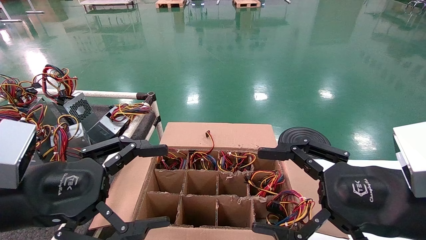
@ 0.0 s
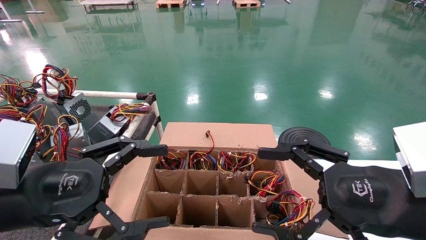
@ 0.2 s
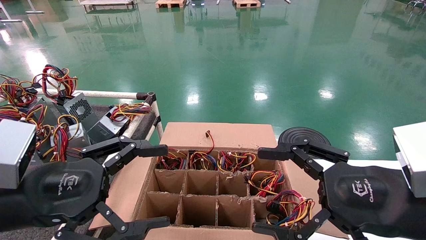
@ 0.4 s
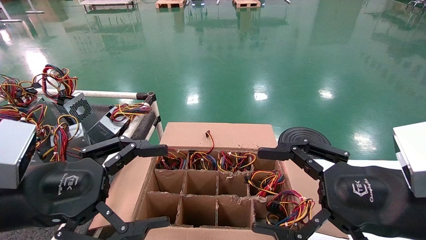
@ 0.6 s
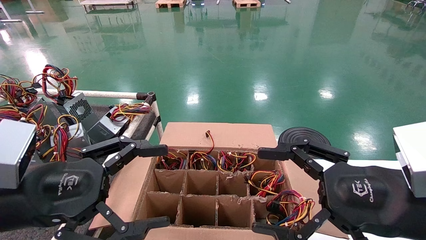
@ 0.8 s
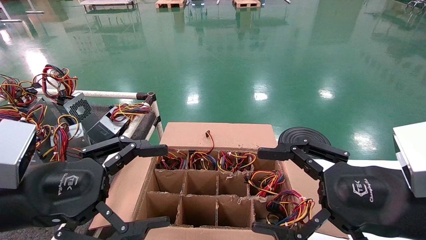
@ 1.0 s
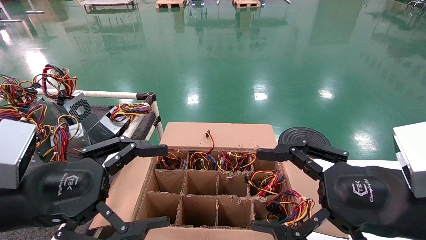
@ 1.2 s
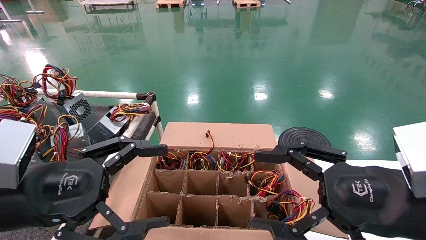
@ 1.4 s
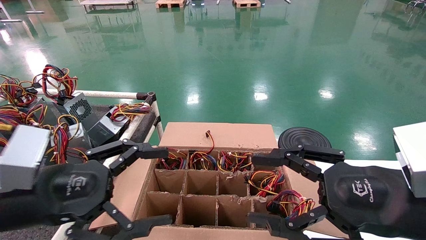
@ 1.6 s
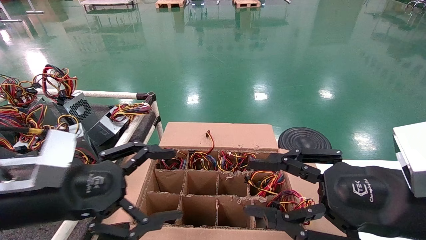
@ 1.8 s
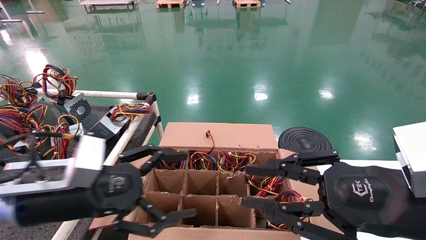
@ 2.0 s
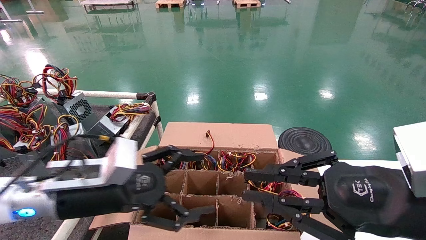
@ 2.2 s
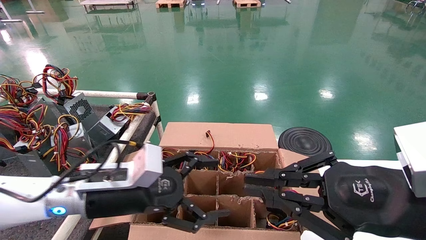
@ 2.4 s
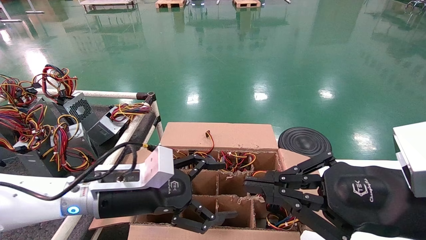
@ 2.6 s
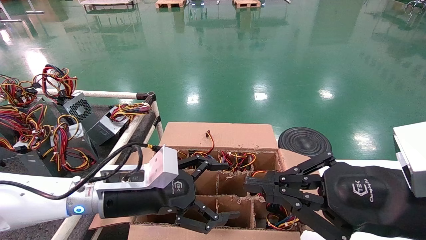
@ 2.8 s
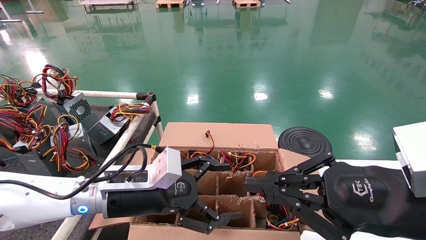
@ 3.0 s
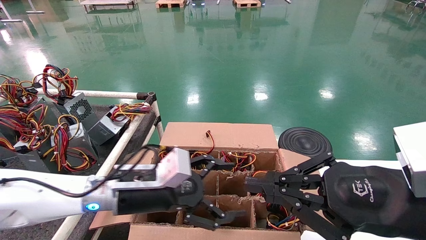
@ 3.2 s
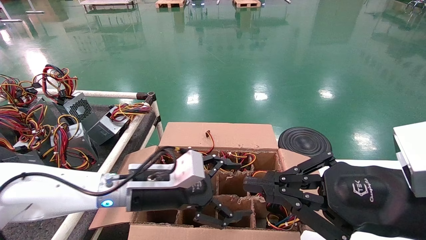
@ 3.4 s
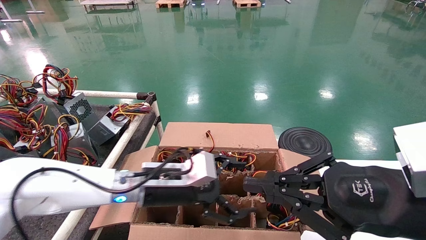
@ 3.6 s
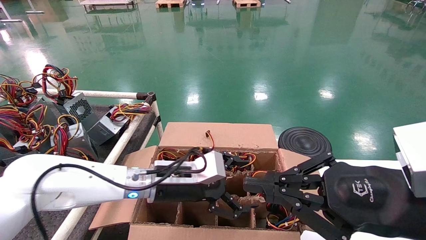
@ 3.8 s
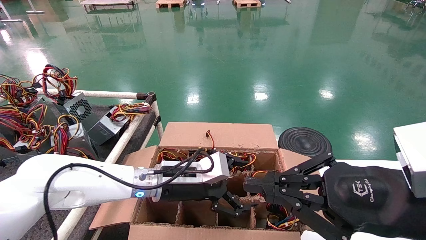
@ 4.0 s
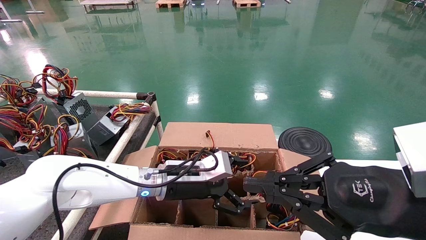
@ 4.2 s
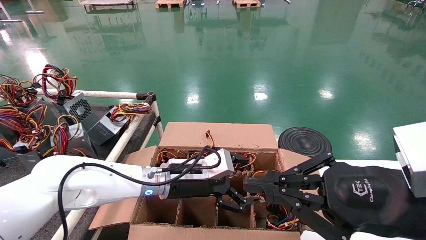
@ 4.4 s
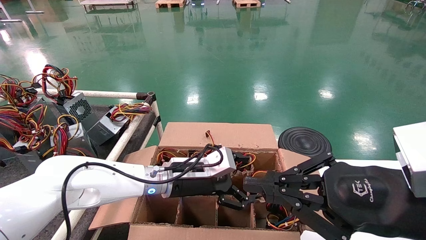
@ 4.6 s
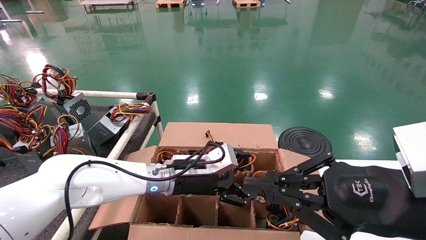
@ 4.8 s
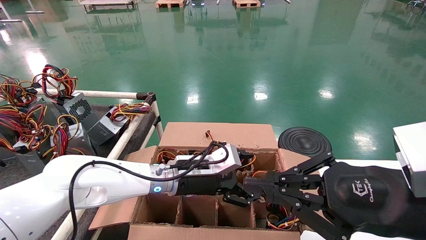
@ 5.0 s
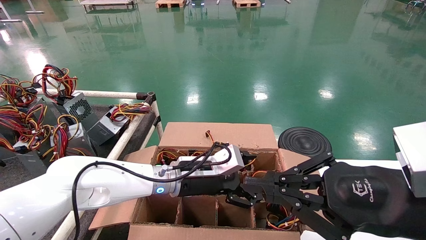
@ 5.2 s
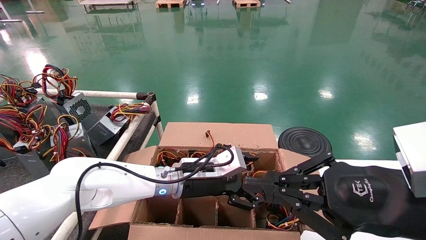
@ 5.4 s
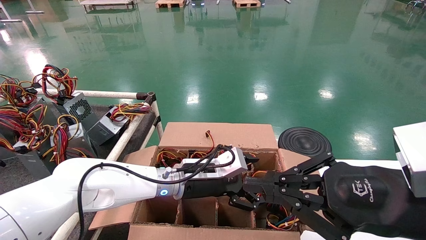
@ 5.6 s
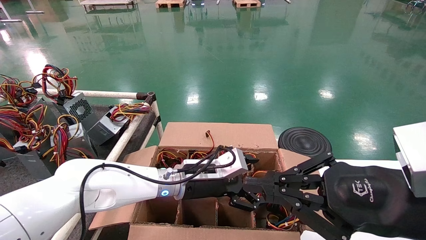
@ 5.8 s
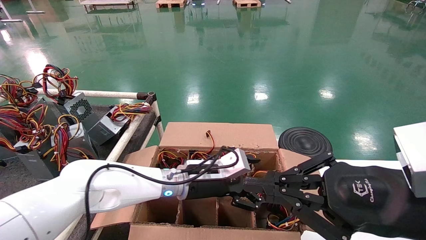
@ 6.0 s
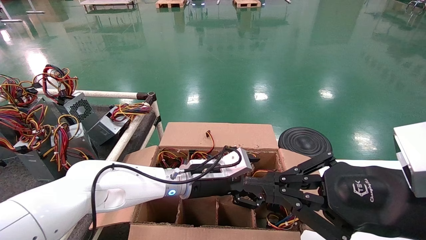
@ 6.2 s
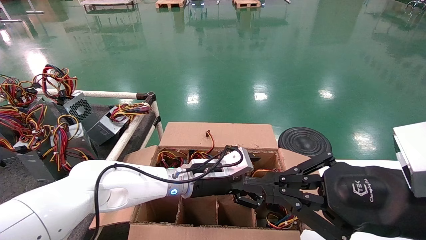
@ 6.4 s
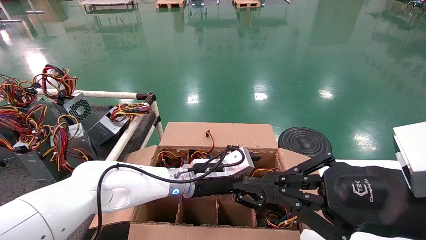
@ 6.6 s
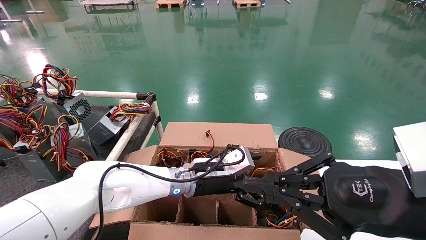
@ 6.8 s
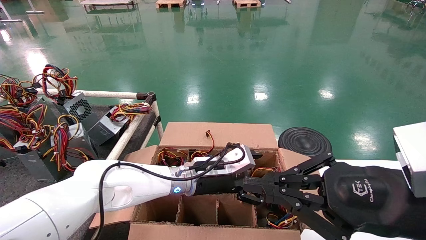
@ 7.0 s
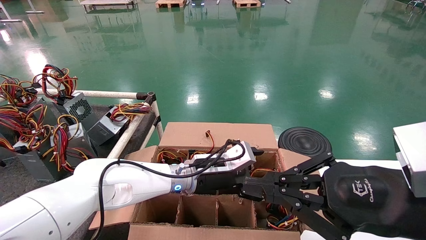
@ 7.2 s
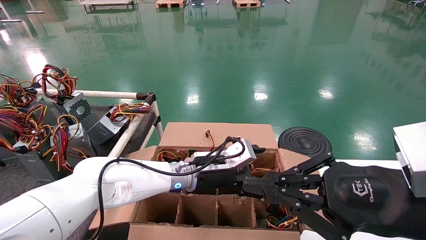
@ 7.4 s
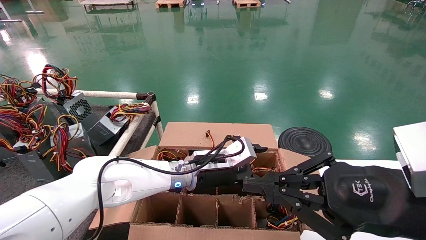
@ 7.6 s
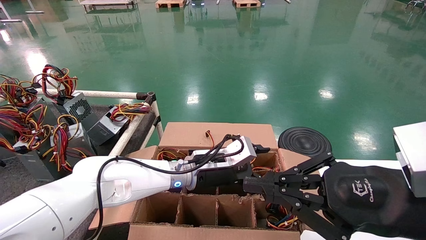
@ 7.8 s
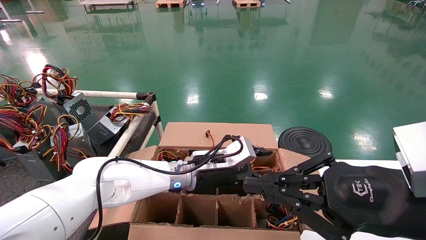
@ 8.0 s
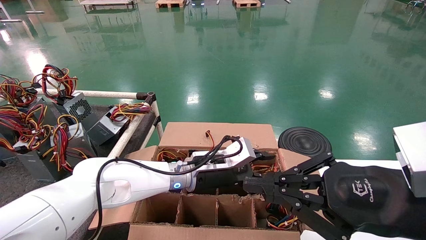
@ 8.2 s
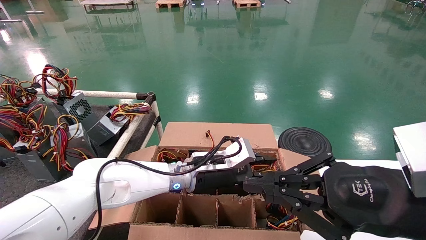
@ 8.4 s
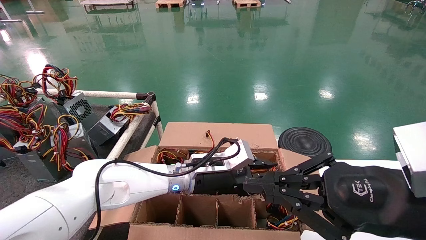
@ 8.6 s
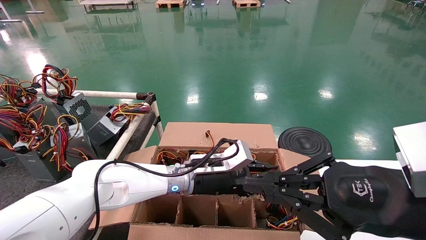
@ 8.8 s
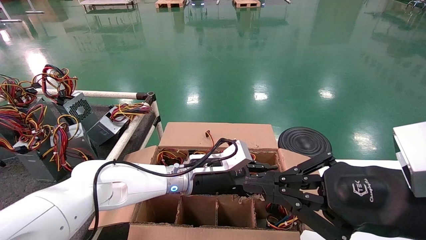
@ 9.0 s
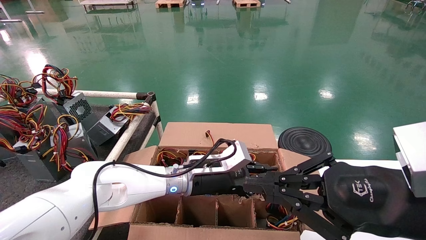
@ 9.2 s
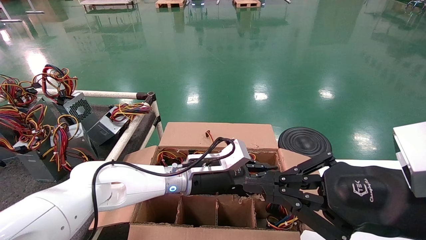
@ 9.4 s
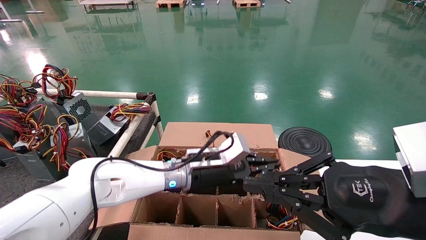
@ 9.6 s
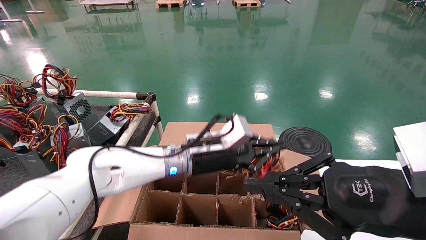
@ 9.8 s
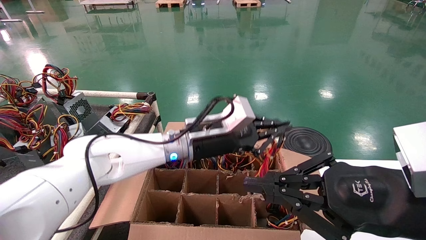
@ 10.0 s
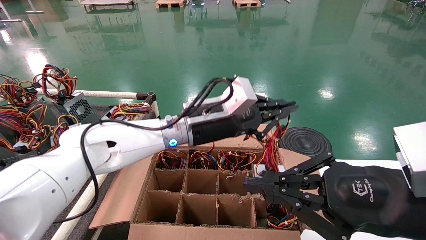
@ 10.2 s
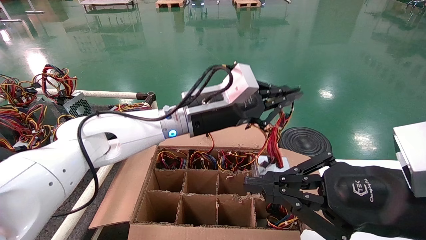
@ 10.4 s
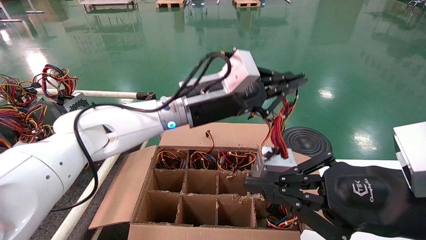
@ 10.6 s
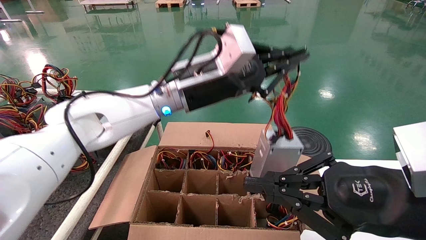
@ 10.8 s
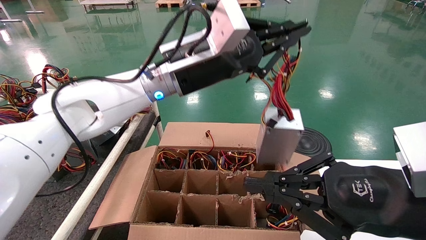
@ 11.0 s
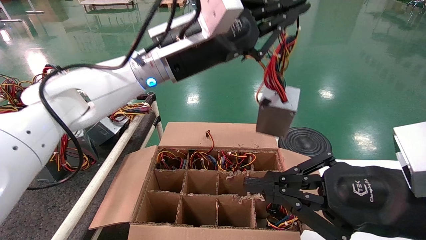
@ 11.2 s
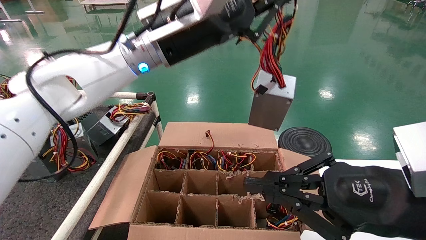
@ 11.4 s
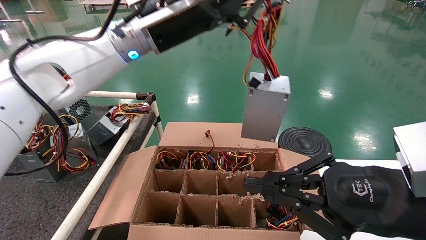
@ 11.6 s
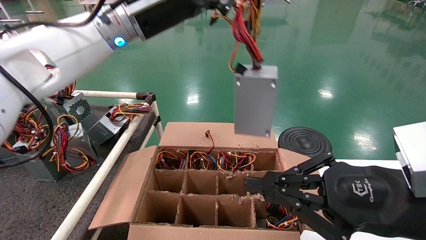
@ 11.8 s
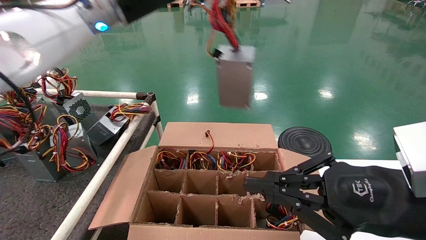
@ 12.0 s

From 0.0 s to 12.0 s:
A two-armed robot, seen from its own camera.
Step, from 1.8 s to 8.8 s: Grab and lift the power supply from the large box.
From 0.0 s to 1.6 s: The grippers move only a little.
From 1.6 s to 3.0 s: The right gripper closes. Meanwhile the left gripper is displaced to the right, forward and downward by approximately 15 cm.
From 3.0 s to 4.4 s: The left gripper travels forward and to the right by some 10 cm.
From 4.4 s to 7.6 s: There are only small adjustments of the grippers.
From 7.6 s to 9.0 s: The left gripper closes.
From 9.0 s to 10.4 s: The left gripper is displaced upward by about 15 cm.
From 10.4 s to 12.0 s: The left gripper travels upward and to the left by about 20 cm.

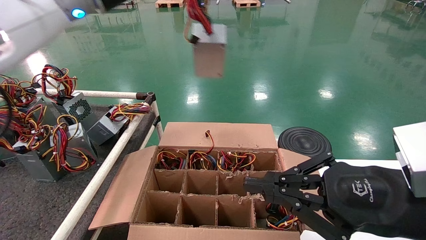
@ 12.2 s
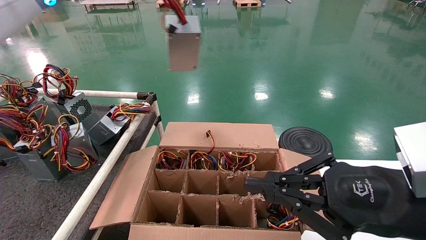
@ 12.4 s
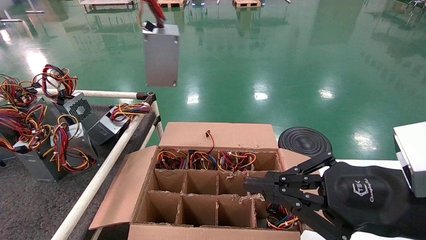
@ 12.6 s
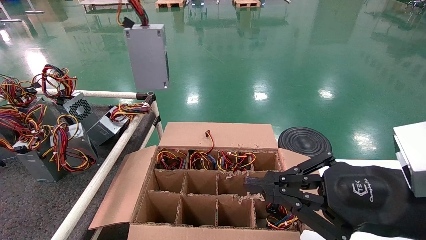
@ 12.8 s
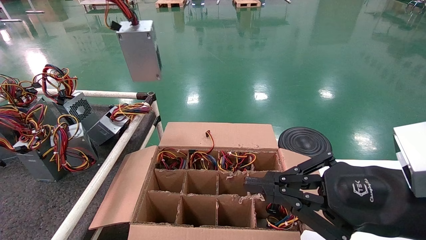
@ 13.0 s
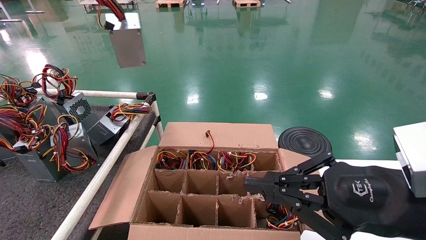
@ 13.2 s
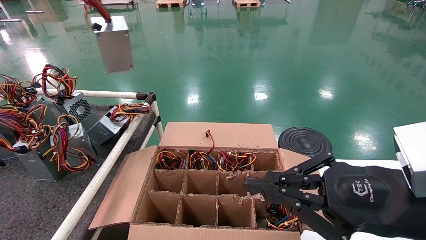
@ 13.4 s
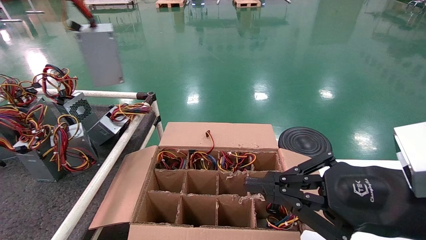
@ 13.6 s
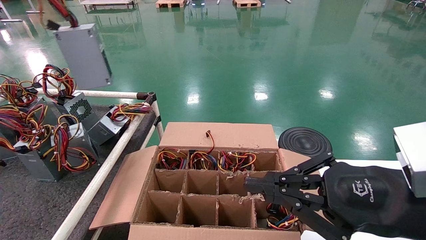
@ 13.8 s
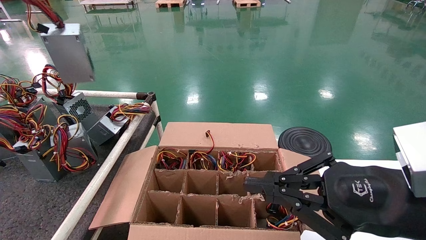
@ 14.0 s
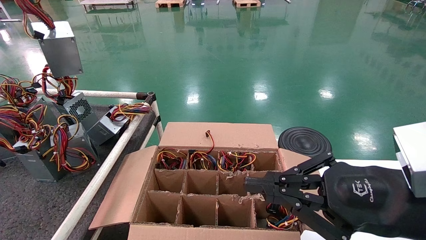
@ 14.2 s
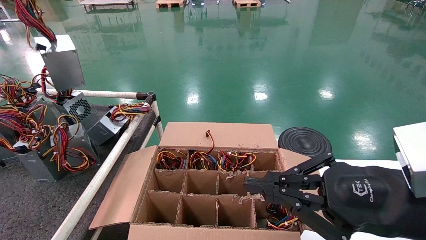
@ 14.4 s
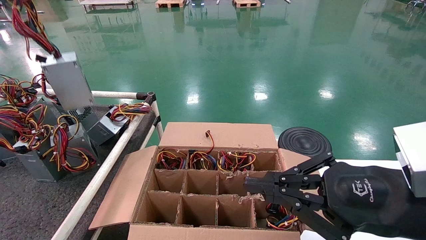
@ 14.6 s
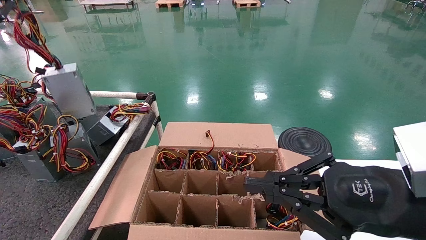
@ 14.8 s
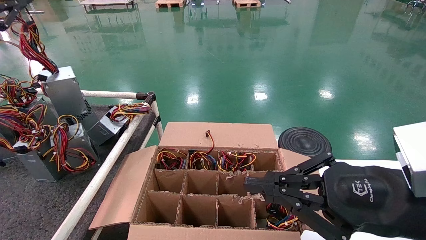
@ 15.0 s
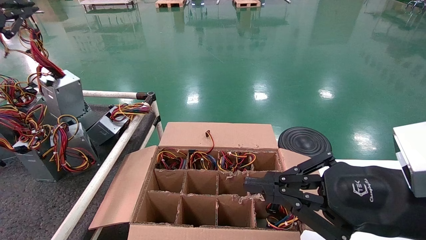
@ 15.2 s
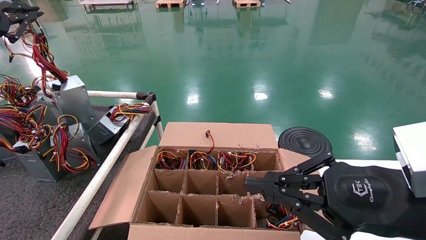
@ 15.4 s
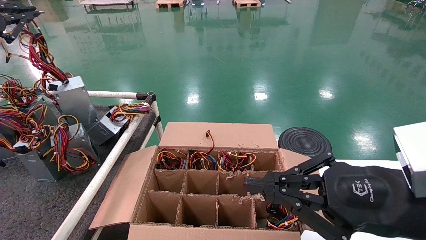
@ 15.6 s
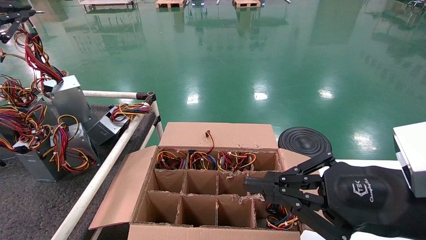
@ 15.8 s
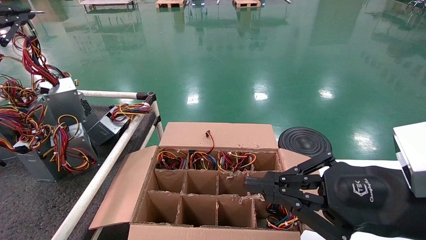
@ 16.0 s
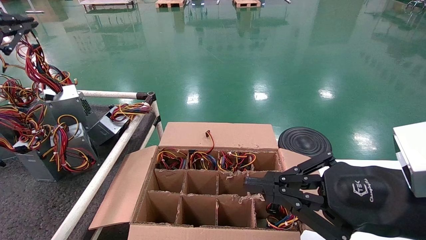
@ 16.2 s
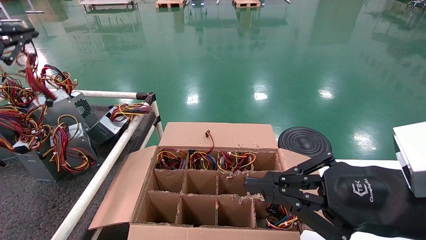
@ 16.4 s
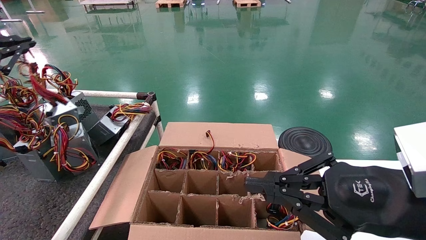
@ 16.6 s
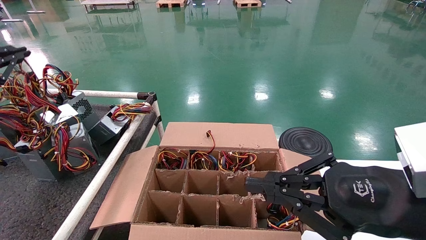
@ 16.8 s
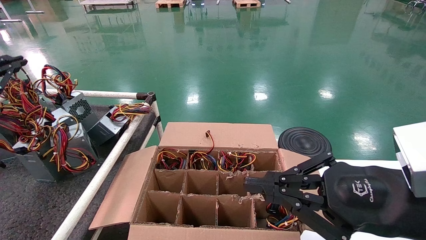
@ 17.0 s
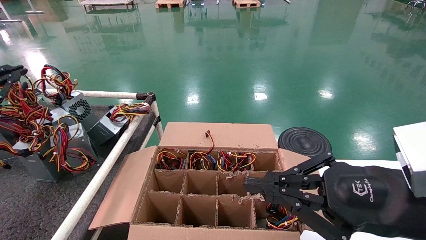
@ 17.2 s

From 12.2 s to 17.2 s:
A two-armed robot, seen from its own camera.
From 12.2 s to 13.8 s: The left gripper moves to the left, roughly 25 cm.
From 13.8 s to 15.6 s: The left gripper goes roughly 10 cm downward and to the left.
From 15.6 s to 17.2 s: The left gripper heads downward and to the left, covering some 15 cm.
